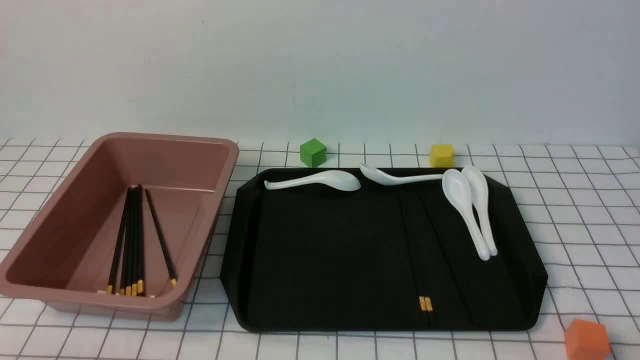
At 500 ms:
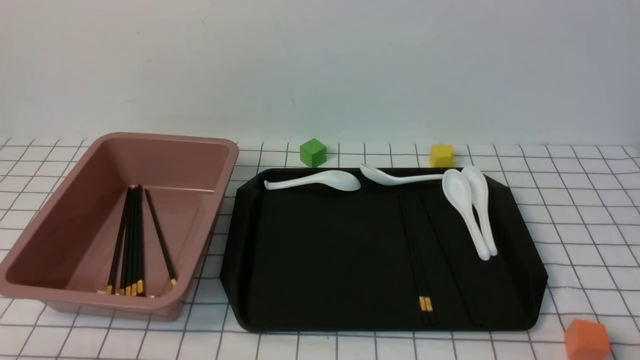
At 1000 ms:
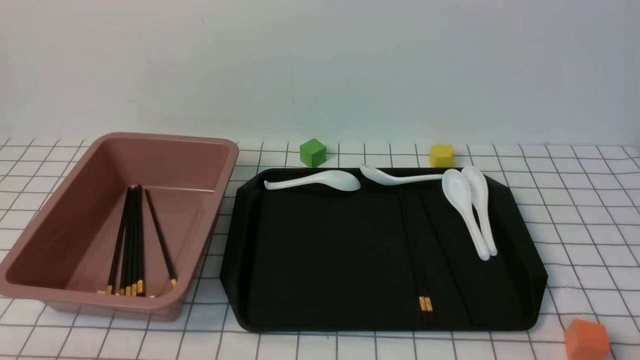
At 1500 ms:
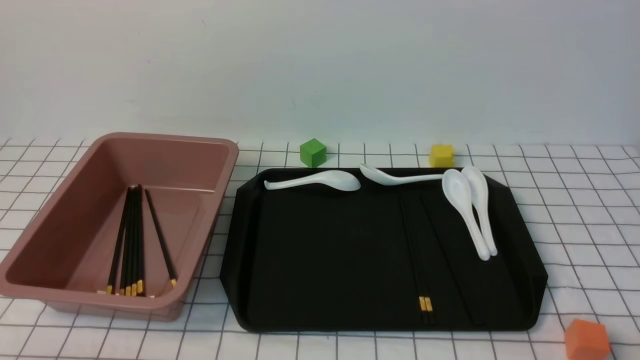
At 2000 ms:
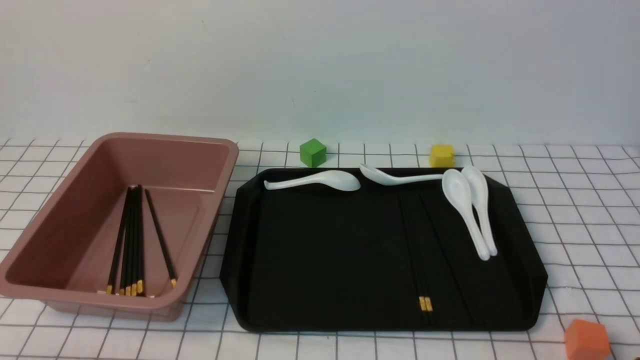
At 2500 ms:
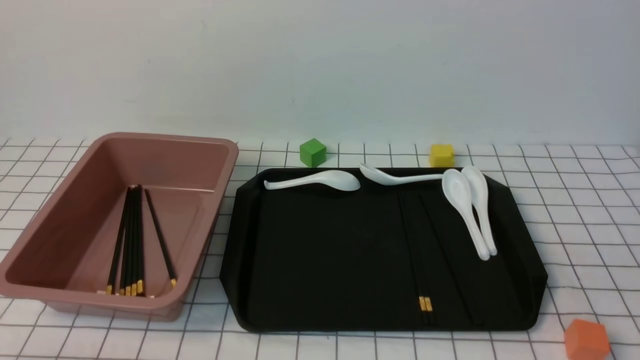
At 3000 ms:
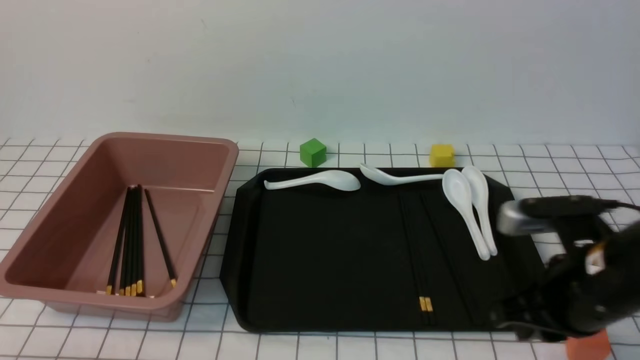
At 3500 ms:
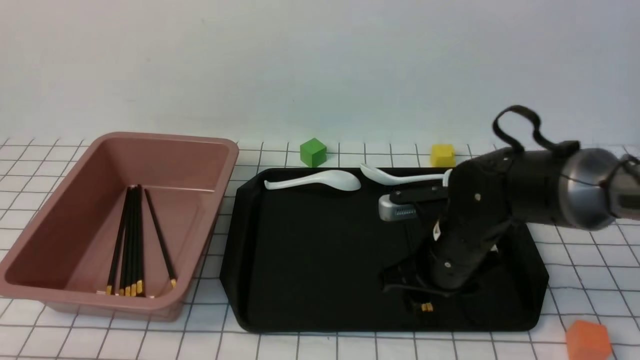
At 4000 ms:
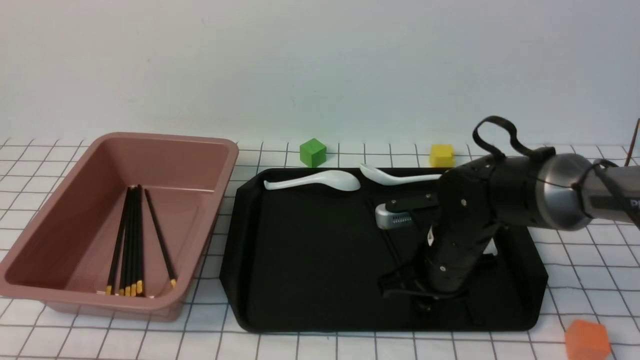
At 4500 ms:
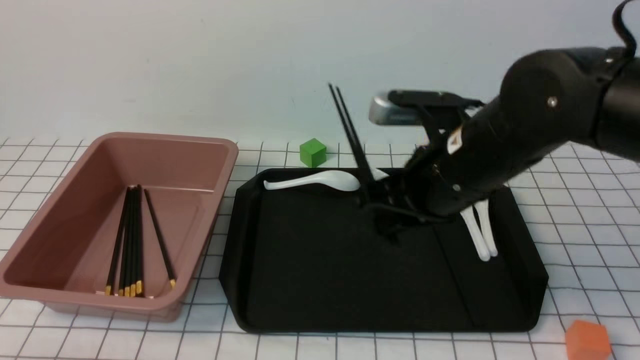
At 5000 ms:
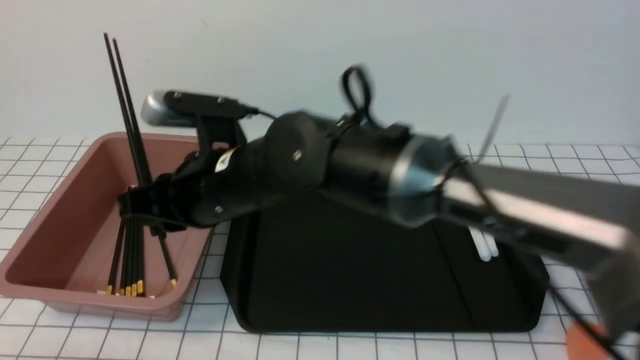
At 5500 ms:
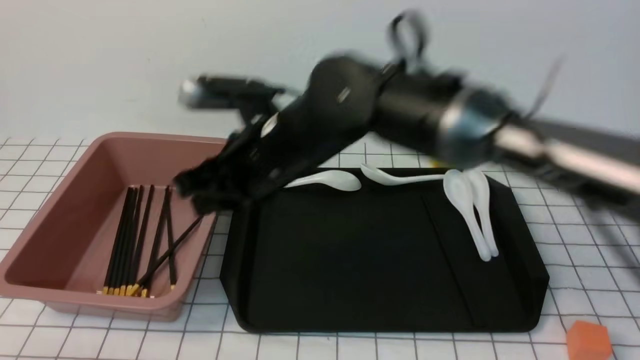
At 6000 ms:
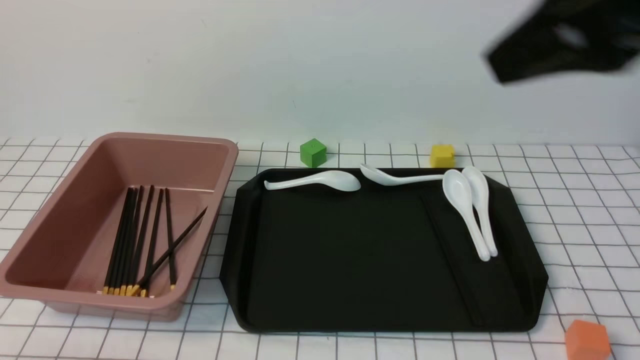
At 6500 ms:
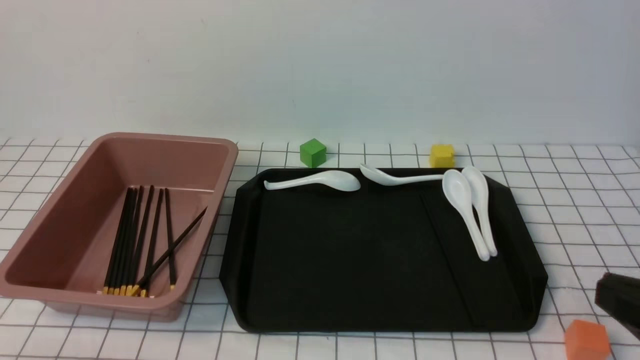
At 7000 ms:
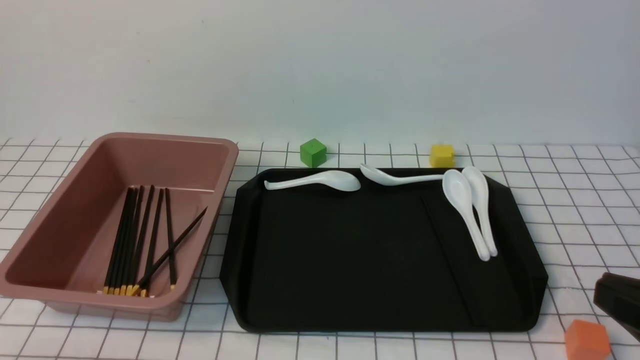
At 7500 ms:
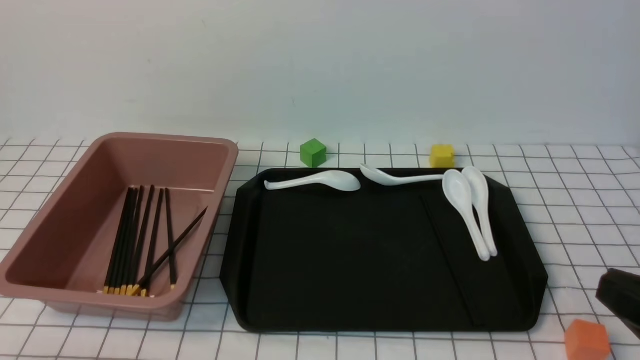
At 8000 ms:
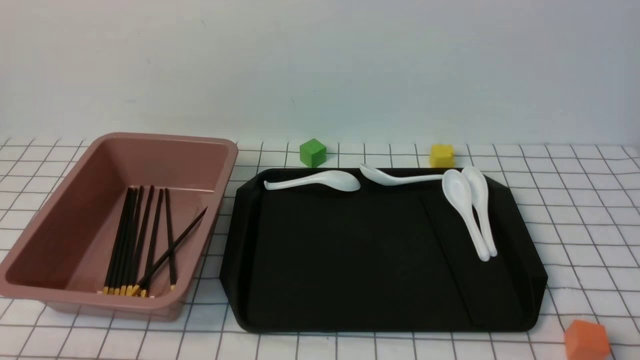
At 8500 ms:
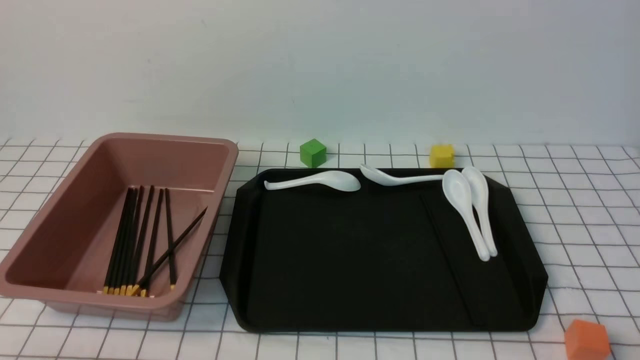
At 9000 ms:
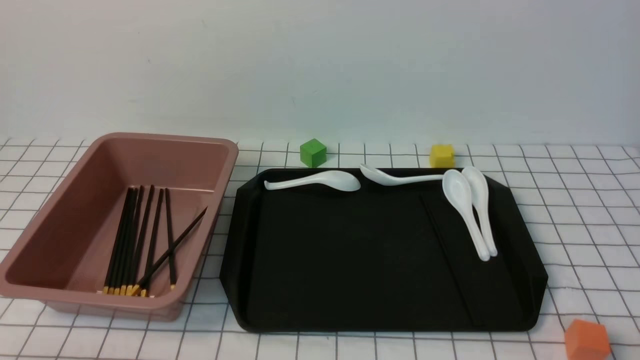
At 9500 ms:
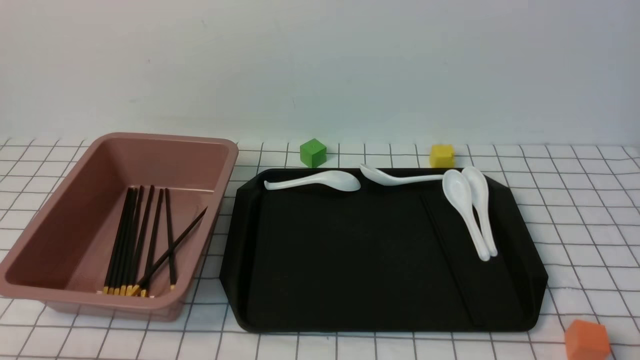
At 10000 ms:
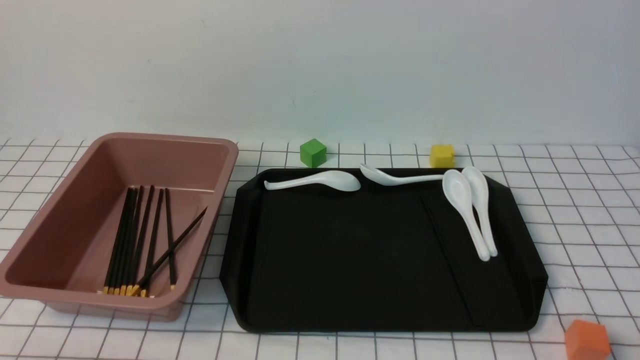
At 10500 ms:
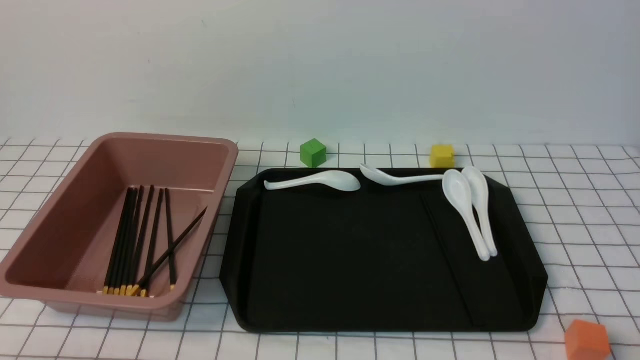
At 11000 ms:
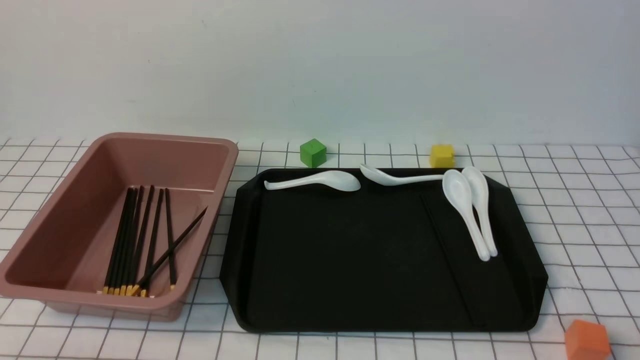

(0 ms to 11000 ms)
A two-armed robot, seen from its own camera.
Step, 0 ms - 4000 ms: use the right arm to grab a pair of chopsticks.
Step, 4500 ms - 5500 ms: use the right arm to put the chopsticks into the lunch box.
2000 ms - 3500 ms: The right gripper moves forward and to the left, some 30 cm, and closes, then opens again.
3500 ms - 5500 ms: The right gripper is displaced upward and to the left by approximately 20 cm, and closes its fingers.
5500 ms - 7500 ms: The right gripper is displaced to the right and backward by roughly 35 cm, and closes.
7500 ms - 9000 ms: The right gripper heads downward, covering some 10 cm.
9000 ms - 11000 ms: Both grippers stay about where they are.
